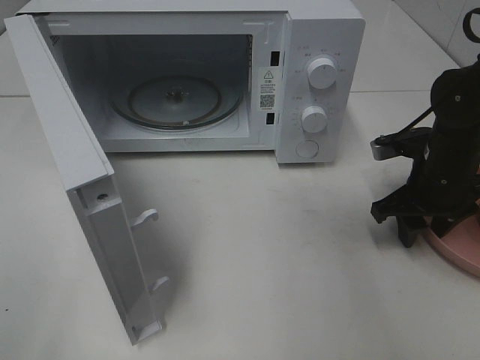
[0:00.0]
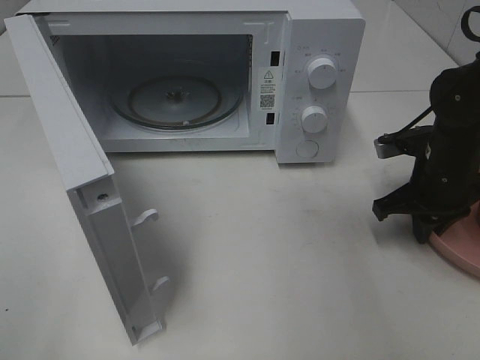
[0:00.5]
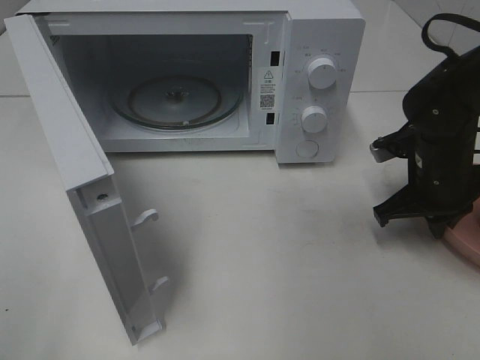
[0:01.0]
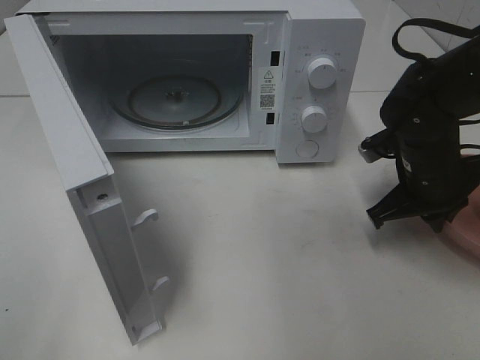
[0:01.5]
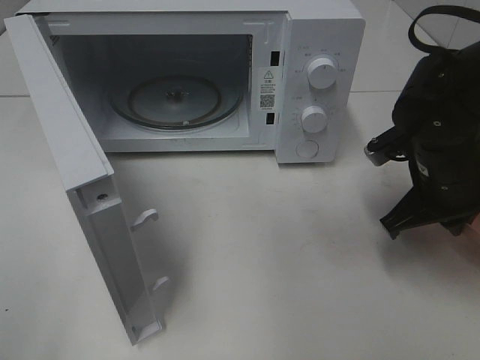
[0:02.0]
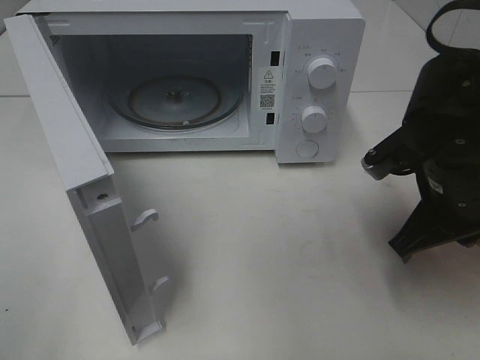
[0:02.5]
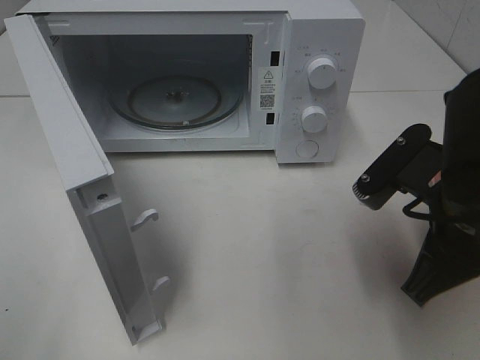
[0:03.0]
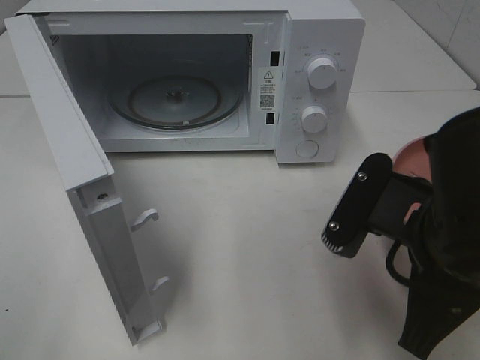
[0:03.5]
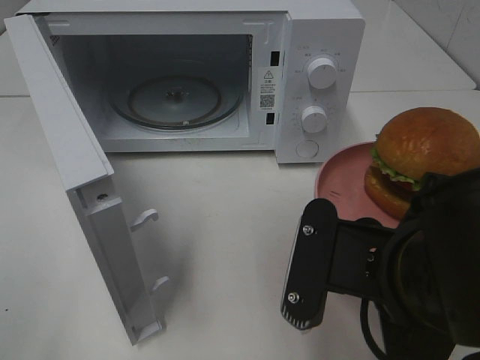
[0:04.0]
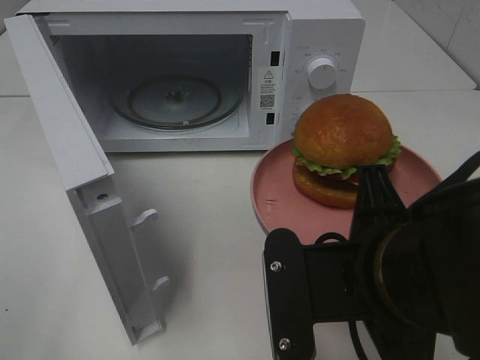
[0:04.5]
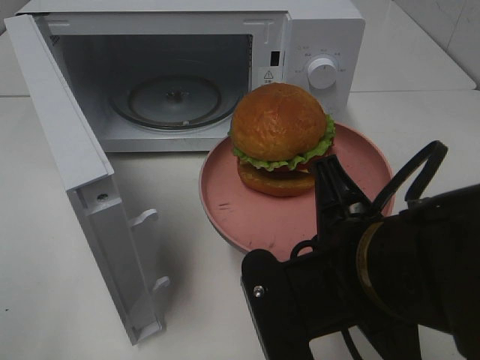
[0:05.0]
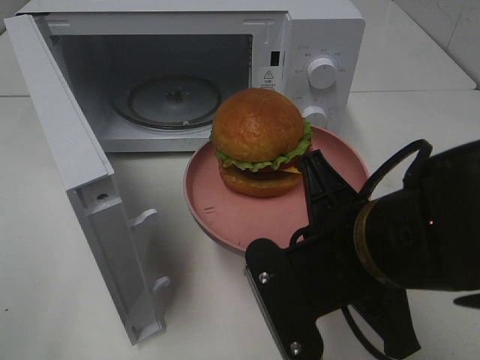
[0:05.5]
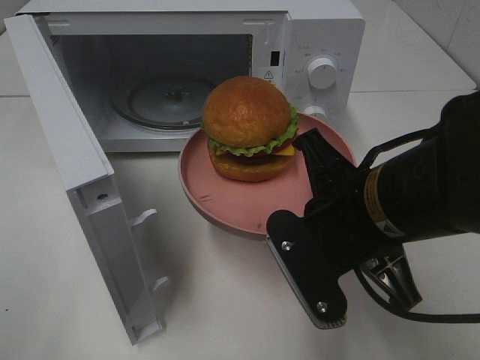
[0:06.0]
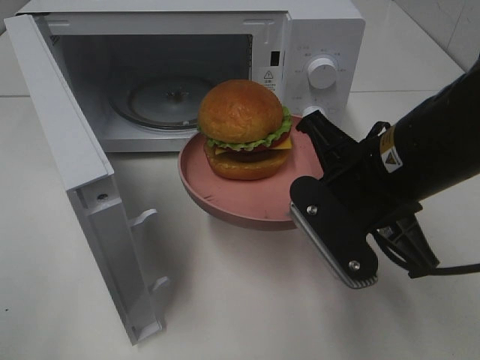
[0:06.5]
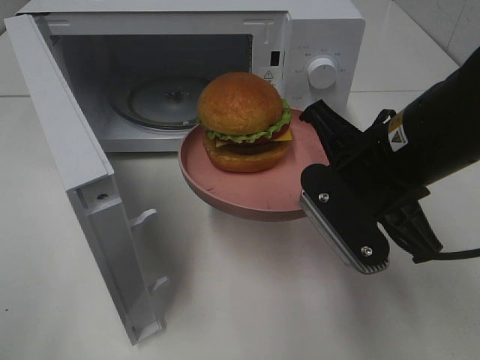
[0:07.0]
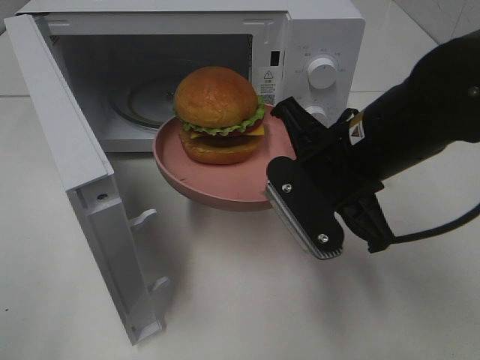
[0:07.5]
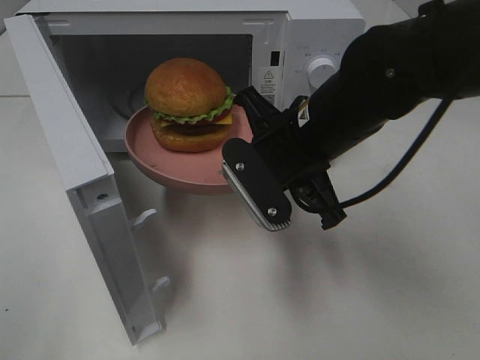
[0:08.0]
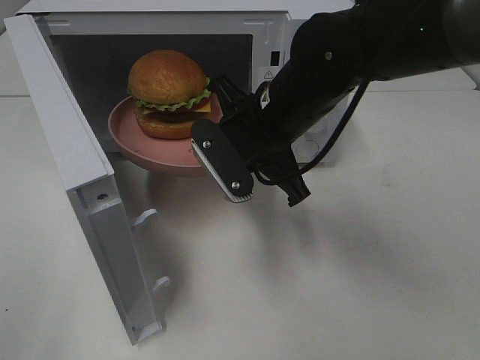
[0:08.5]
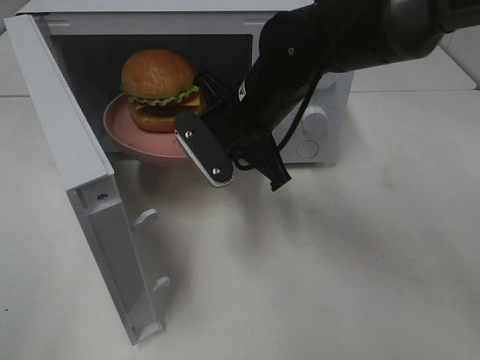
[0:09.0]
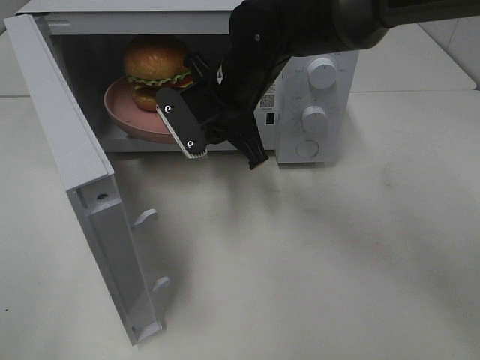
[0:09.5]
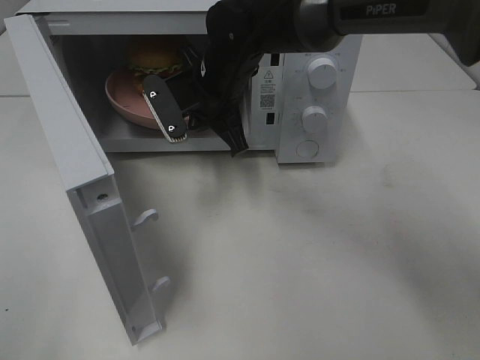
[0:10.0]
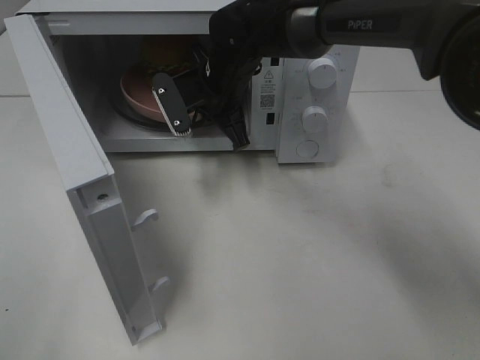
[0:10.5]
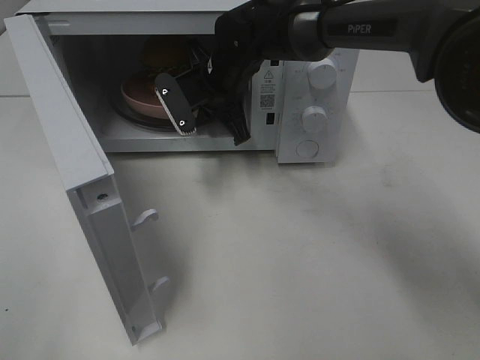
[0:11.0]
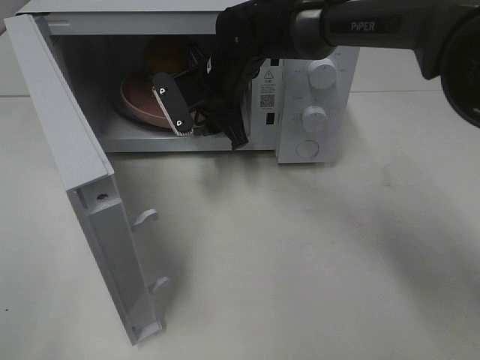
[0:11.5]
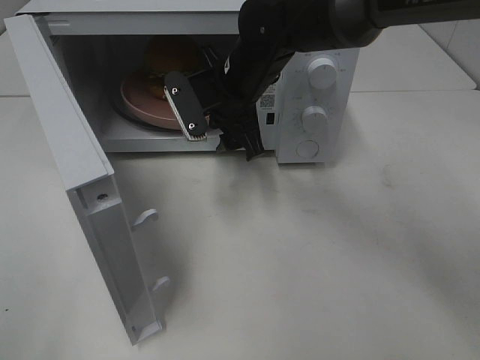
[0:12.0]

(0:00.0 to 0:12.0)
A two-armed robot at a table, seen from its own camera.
Task of the whole recording: Heat the burger.
Step, 0:01.5 - 0:11.5: Right hand: place the plate in the microwave.
0:00.0 - 0:02.0: The right gripper moves some 5 cm, and closes.
0:02.0 - 0:04.0: The right gripper moves backward and to the left, about 20 cm.
0:04.0 - 0:06.0: The right gripper moves forward, approximately 5 cm.
0:06.0 - 0:08.0: The right gripper heads forward, covering roughly 10 cm.
0:08.0 - 0:10.0: The right gripper travels forward and to the left by roughly 15 cm.
0:10.0 - 0:12.0: The right gripper opens up.

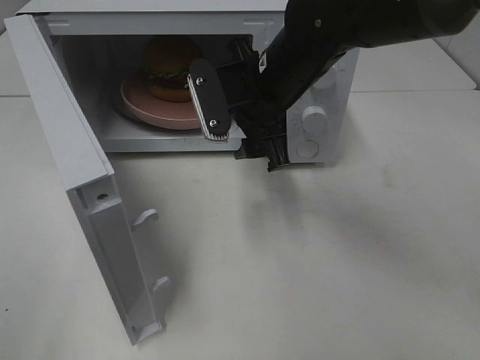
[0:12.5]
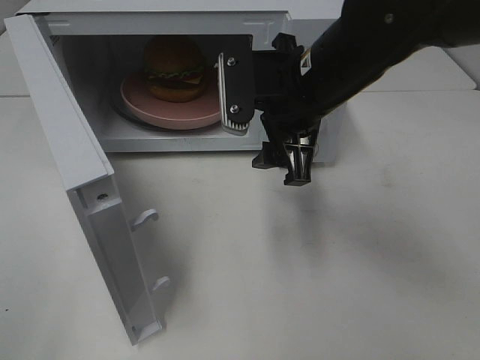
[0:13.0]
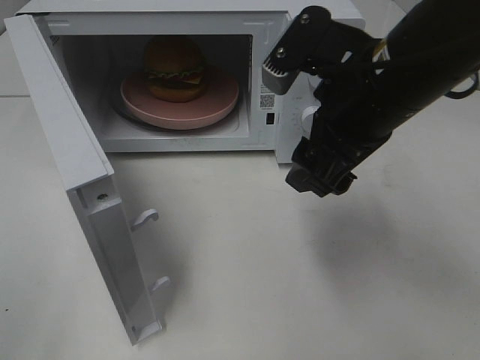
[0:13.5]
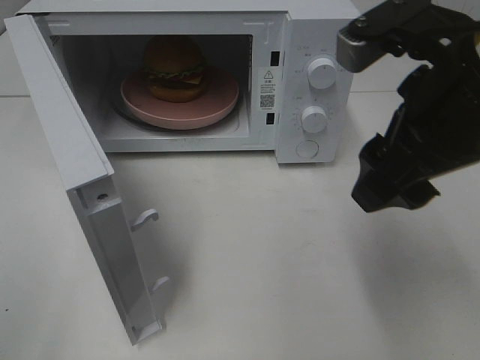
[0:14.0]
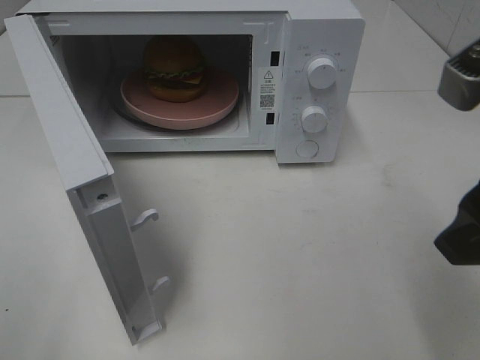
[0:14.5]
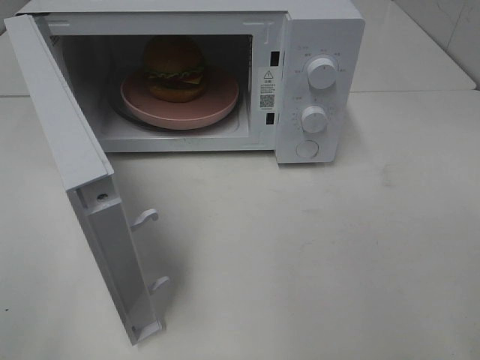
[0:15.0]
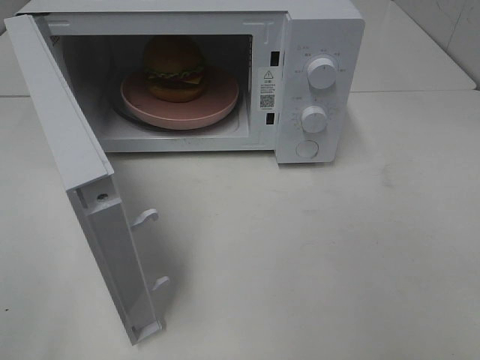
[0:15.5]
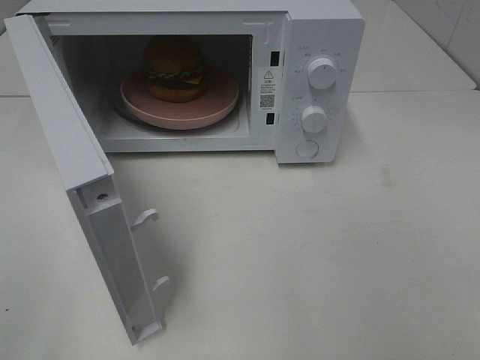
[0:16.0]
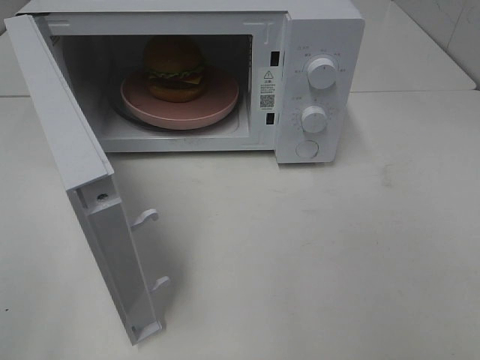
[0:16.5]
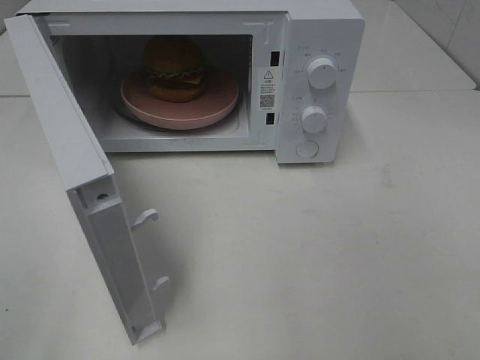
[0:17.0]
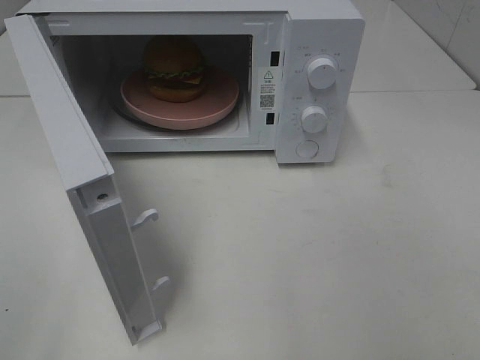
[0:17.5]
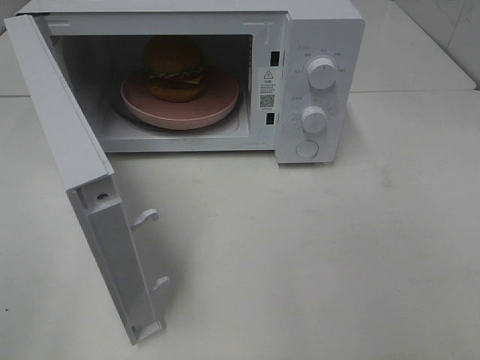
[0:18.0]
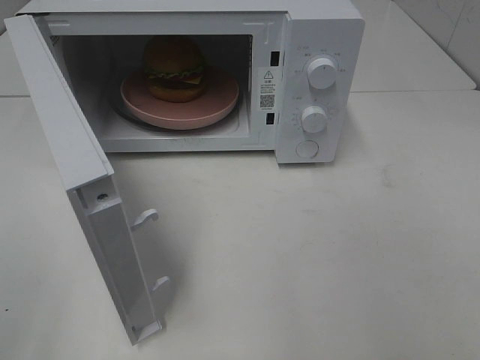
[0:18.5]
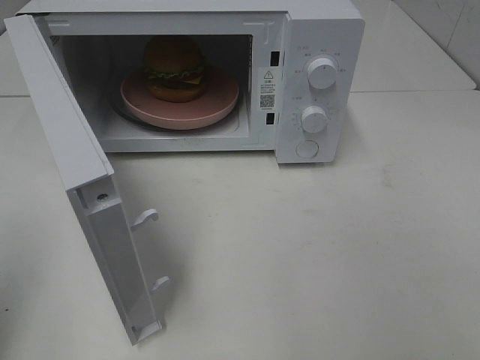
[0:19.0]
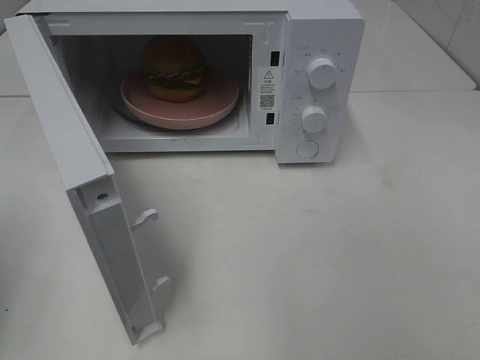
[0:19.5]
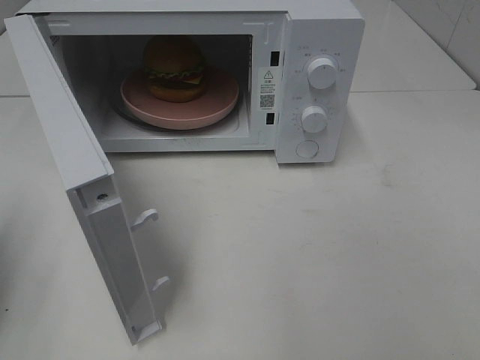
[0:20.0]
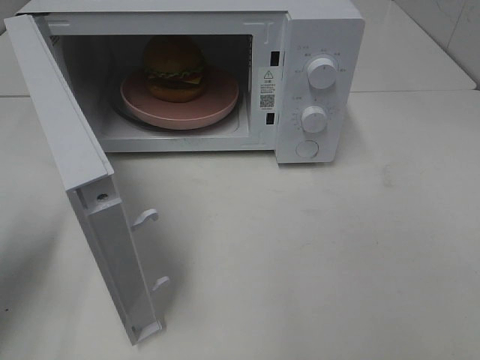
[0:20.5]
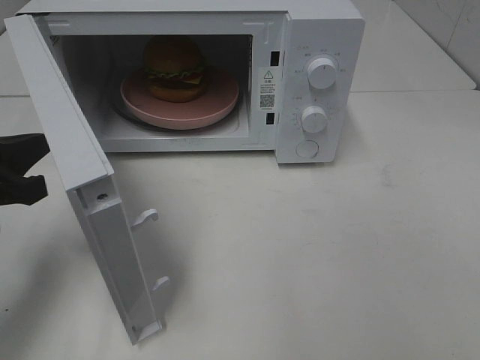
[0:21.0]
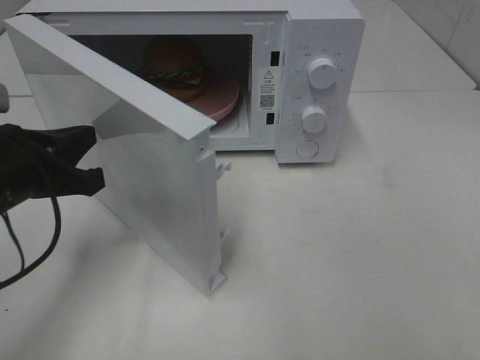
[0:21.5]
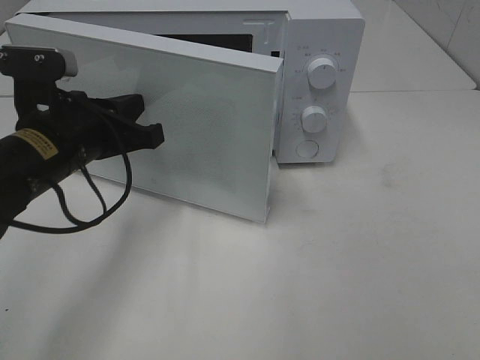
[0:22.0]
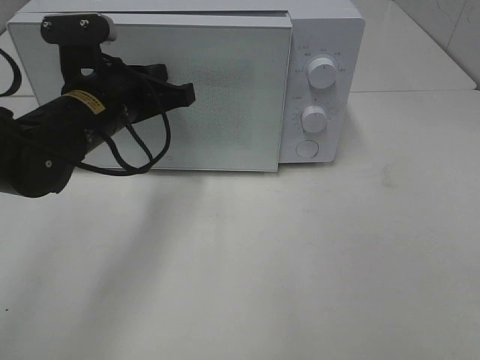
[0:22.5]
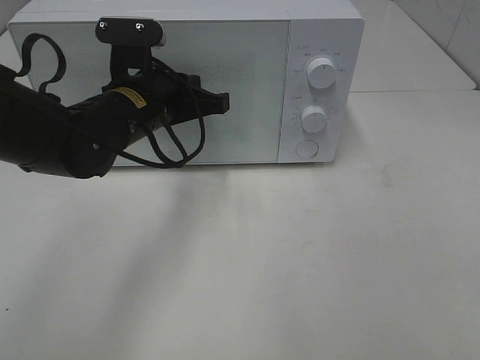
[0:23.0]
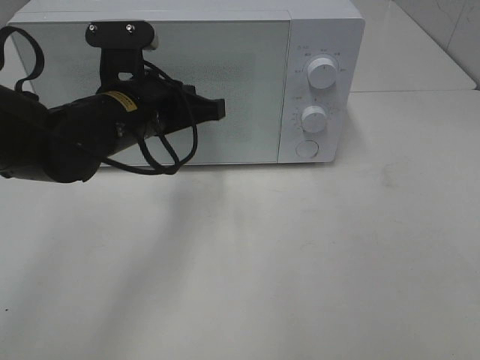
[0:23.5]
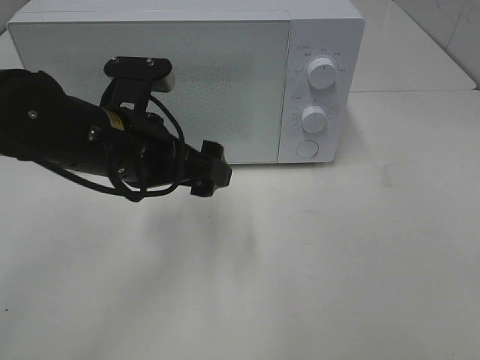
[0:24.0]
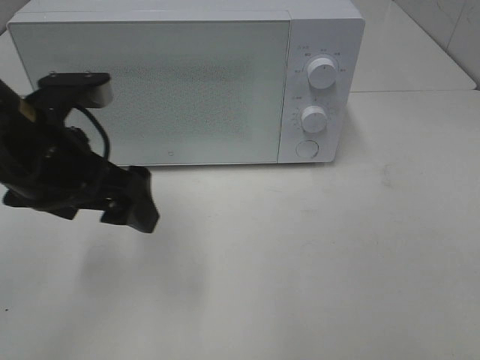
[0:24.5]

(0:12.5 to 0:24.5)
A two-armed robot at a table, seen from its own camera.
Task of the whole recording: Heat the burger.
Step, 0:12.5 - 0:23.5: Left hand: close the microwave door.
0:12.5 - 0:14.5: The right gripper shifts about 25 cm backward, to the right and upward.
0:14.5 - 0:16.5: The right gripper moves backward and to the right, roughly 15 cm.
0:18.5 - 0:20.5: The left gripper shifts some 20 cm forward and downward, and closes up.
0:20.5 - 0:22.5: The left gripper is displaced to the right and forward by about 20 cm.
0:22.5 - 0:24.5: The left gripper shifts roughly 10 cm backward, and opens up.

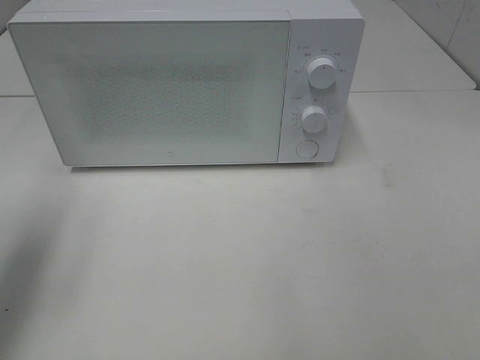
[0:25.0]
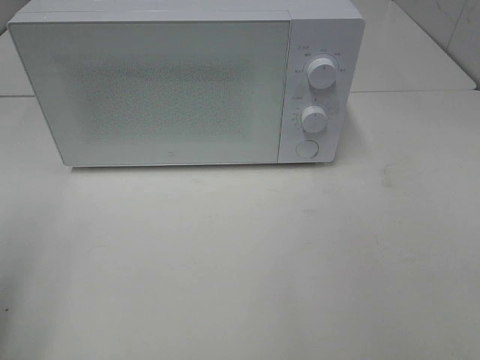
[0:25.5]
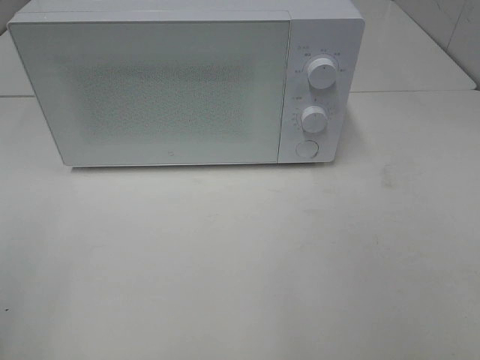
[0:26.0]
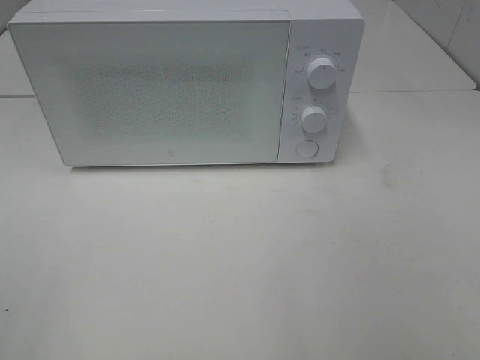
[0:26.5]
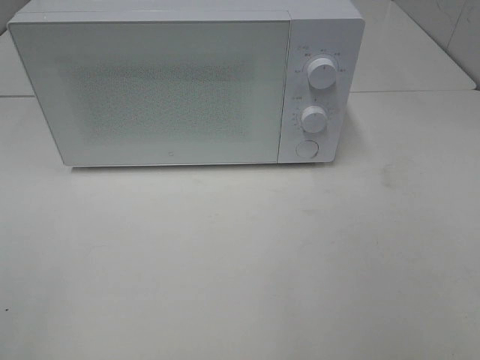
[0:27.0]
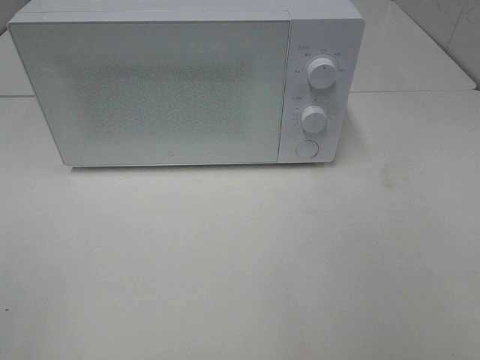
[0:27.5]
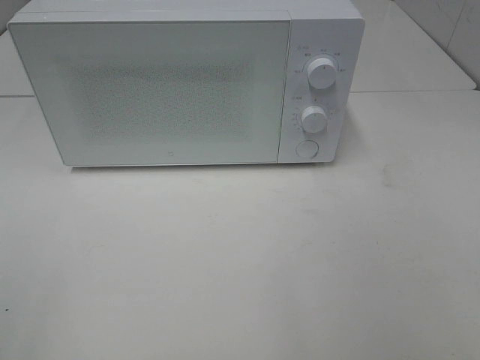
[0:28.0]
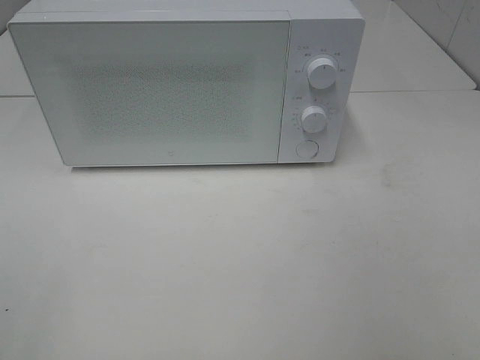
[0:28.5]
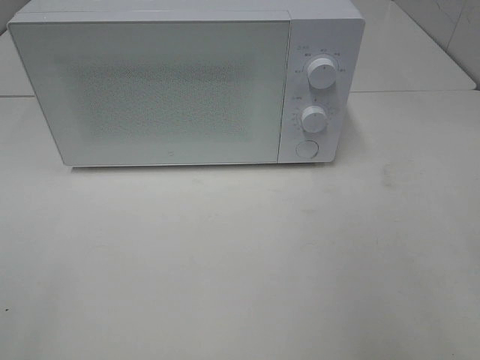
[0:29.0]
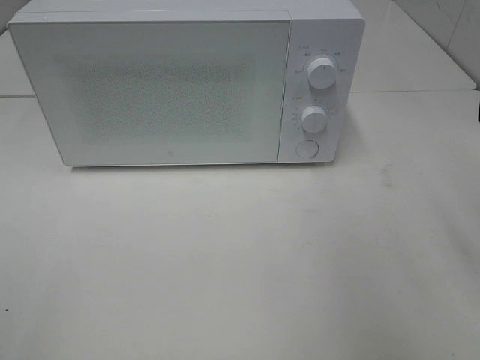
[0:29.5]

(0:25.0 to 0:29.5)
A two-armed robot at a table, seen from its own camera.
Task of the whole recording: Heat the burger.
0:25.0 - 0:27.0: The left gripper goes about 20 cm backward.
